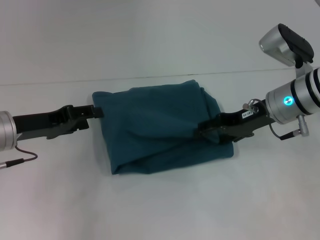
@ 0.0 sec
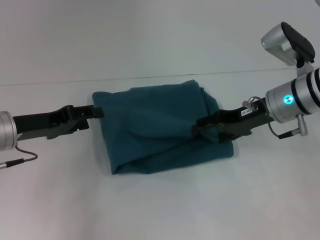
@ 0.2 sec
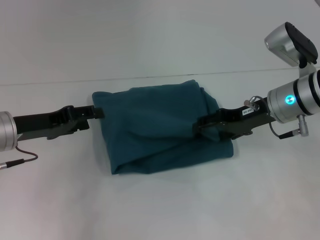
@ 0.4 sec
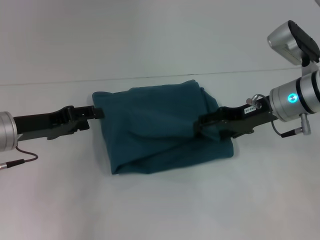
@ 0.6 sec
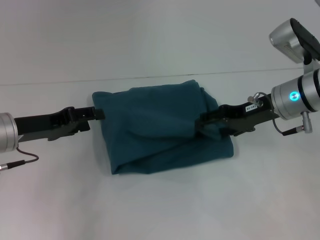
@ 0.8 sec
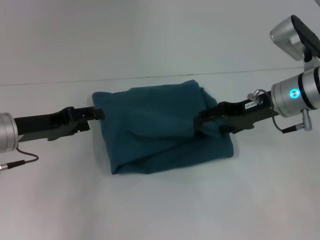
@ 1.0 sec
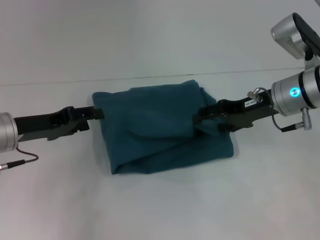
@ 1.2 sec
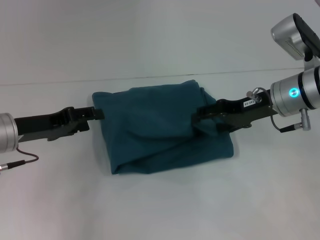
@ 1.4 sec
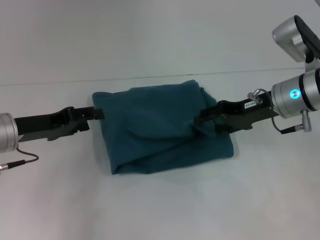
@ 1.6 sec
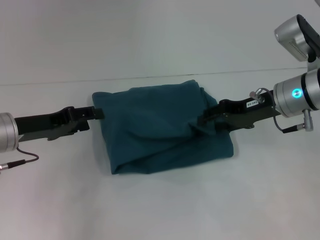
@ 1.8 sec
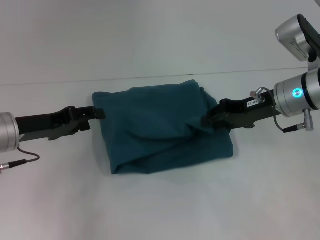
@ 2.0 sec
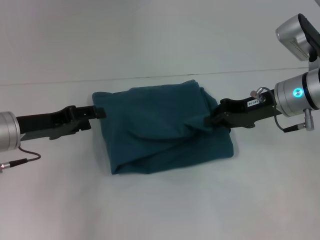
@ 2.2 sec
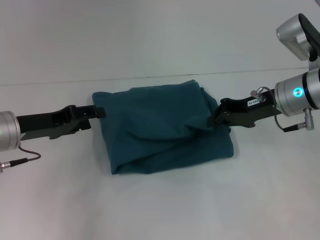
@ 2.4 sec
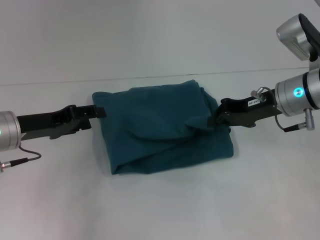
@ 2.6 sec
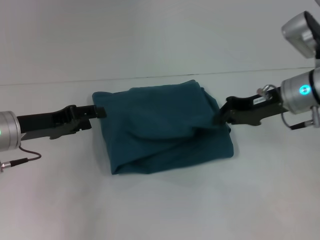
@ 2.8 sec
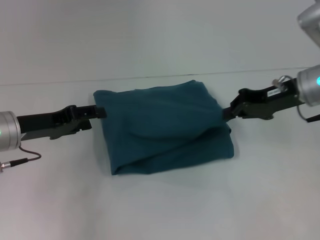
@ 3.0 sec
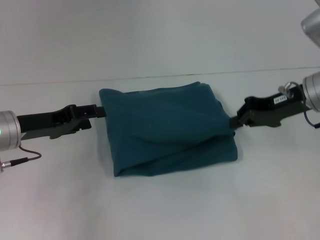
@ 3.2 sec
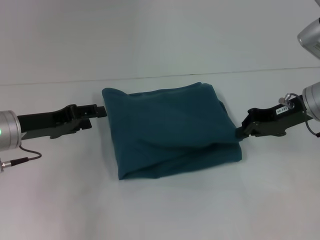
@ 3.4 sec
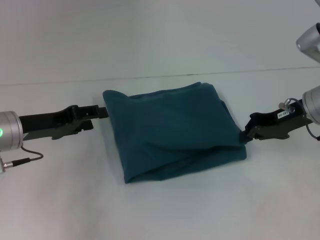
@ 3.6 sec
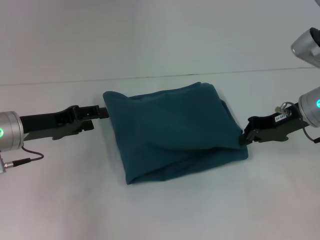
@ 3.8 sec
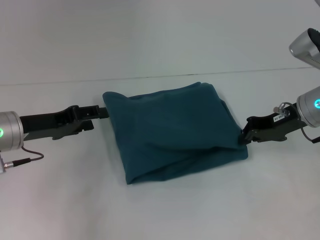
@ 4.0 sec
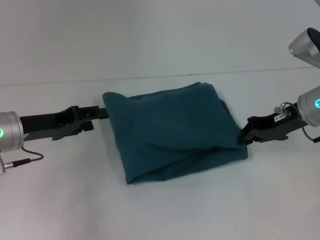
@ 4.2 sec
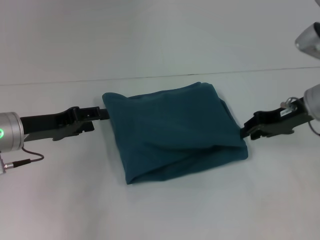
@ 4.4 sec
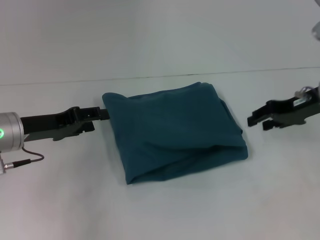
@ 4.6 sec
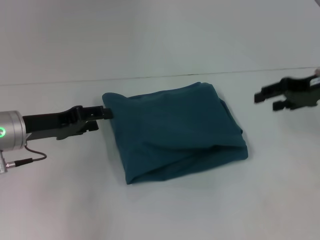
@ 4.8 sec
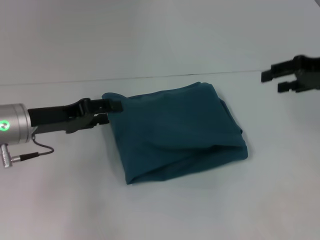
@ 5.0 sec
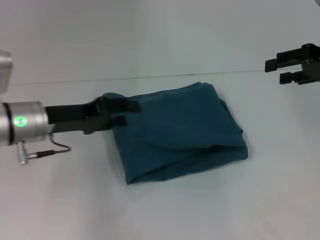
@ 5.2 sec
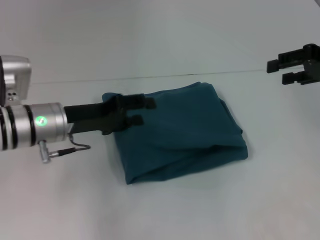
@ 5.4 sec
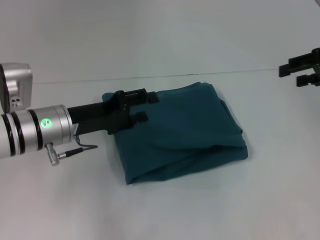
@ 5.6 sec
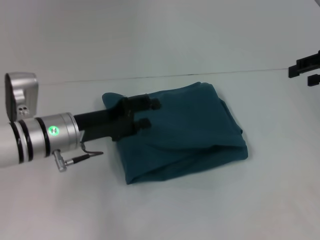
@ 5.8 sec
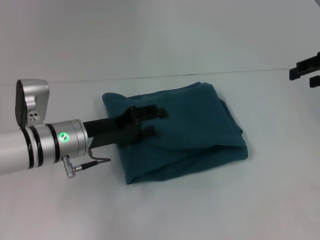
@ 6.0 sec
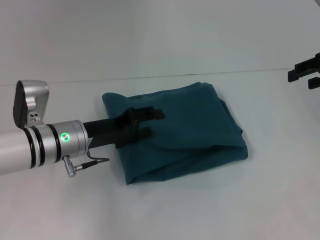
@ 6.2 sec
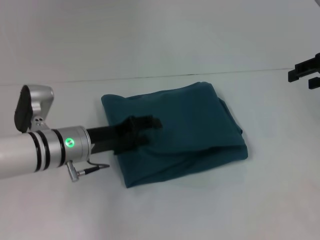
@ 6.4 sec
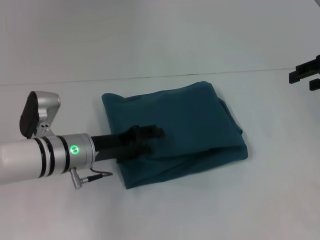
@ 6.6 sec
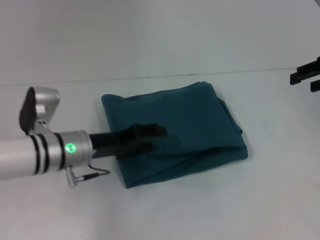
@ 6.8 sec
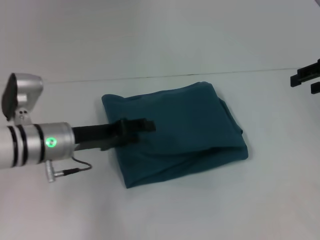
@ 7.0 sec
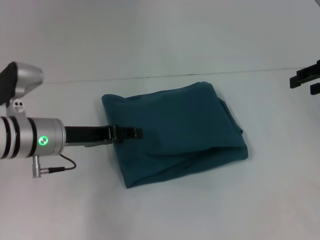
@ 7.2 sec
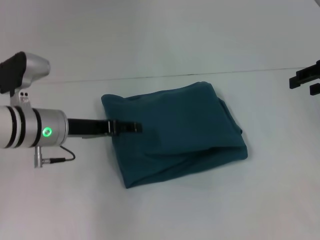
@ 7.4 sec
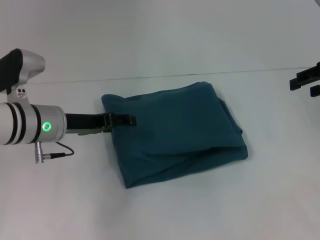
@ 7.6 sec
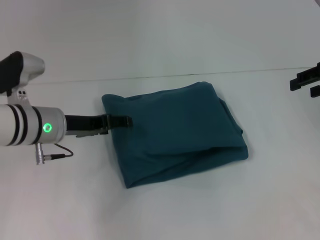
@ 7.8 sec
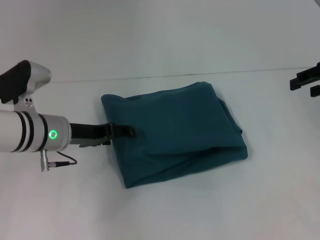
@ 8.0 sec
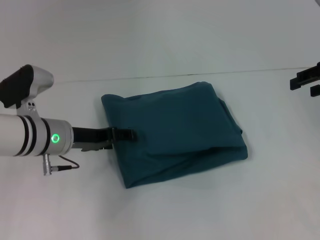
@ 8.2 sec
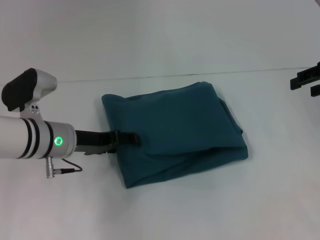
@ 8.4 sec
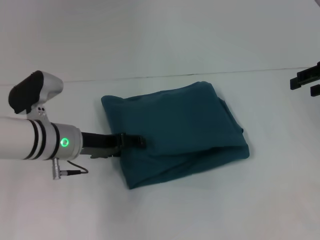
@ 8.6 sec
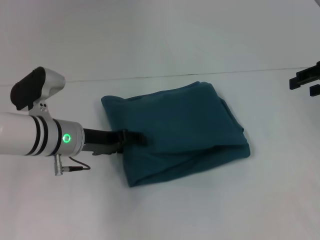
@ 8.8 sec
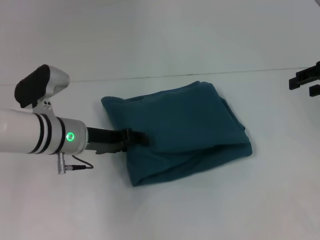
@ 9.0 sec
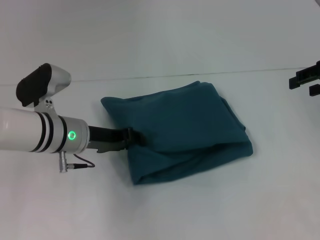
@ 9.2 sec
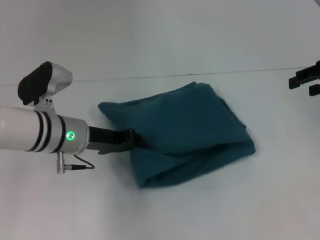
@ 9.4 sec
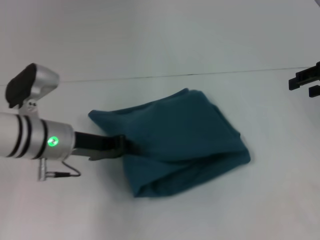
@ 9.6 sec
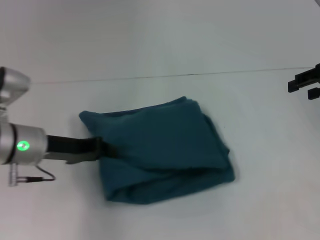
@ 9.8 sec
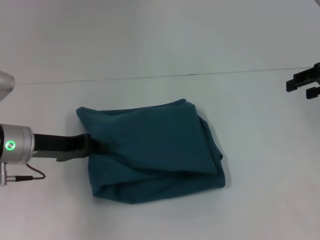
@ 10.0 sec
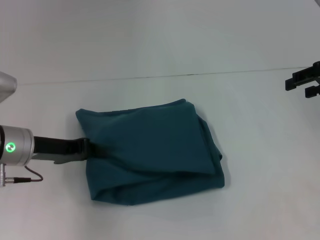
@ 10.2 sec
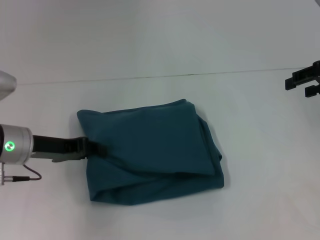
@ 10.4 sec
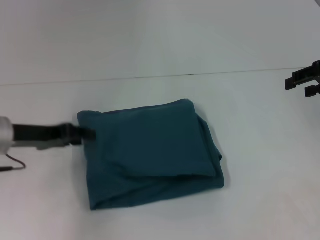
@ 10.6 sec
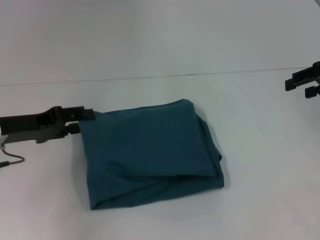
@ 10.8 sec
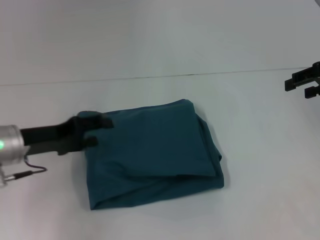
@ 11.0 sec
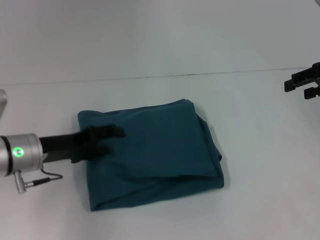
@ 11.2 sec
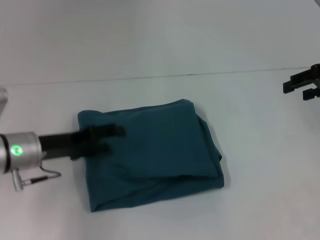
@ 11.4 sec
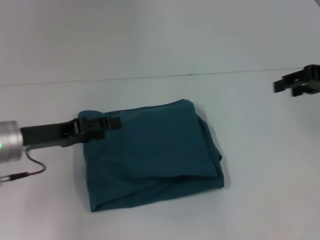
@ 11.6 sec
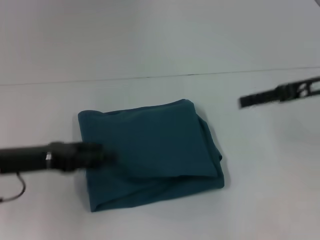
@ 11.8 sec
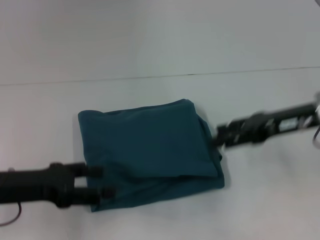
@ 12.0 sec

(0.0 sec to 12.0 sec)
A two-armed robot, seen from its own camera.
0.0 sec - 1.6 sec: The grippers move only a little.
1.6 sec - 3.0 sec: The right gripper closes.
3.0 sec - 4.4 sec: The grippers stay close to where they were, moving slightly.
4.4 sec - 6.0 sec: The left gripper moves to the right, approximately 10 cm. Meanwhile the right gripper goes roughly 10 cm upward and to the right, and opens up.
7.6 sec - 9.0 sec: The grippers make only small movements.
9.0 sec - 10.4 sec: The left gripper heads to the left, covering about 5 cm, and closes its fingers.
10.4 sec - 12.0 sec: The right gripper is displaced to the left and downward by roughly 10 cm; the left gripper moves backward, roughly 5 cm, and opens its fingers.

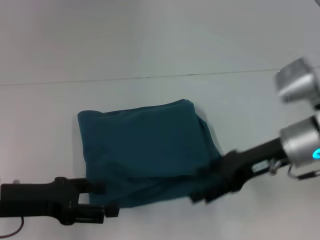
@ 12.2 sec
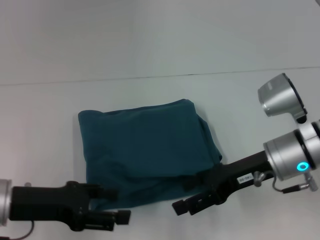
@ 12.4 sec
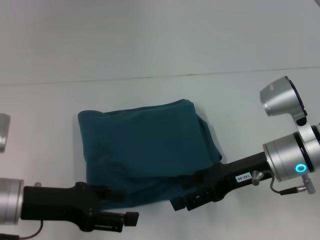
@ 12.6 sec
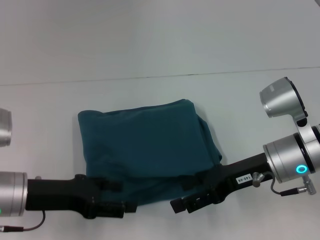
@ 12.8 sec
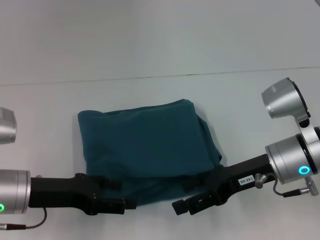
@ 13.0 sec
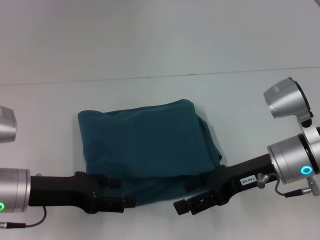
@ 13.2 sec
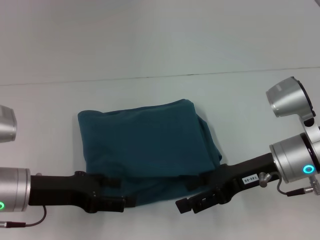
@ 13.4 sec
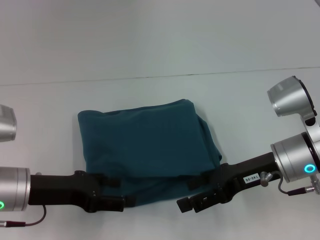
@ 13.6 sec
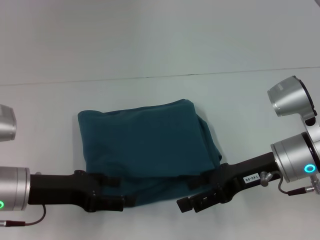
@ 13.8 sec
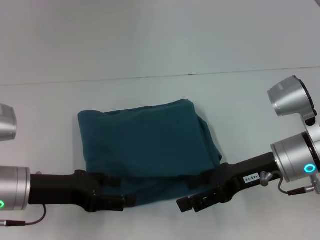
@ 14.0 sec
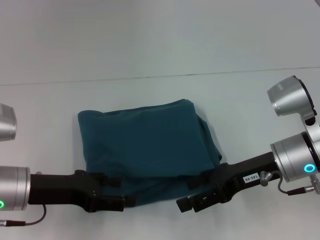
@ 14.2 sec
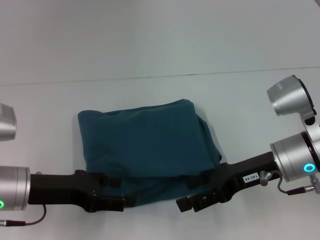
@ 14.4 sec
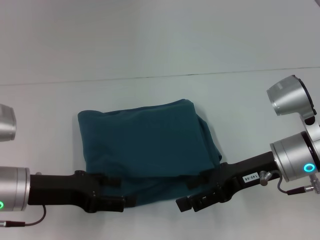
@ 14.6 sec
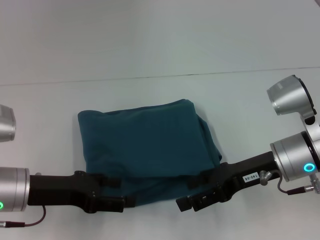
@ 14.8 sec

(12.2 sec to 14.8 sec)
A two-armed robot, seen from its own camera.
12.2 sec - 13.4 sec: The grippers stay close to where they were, moving slightly.
13.4 sec - 14.8 sec: Both grippers stay put.
